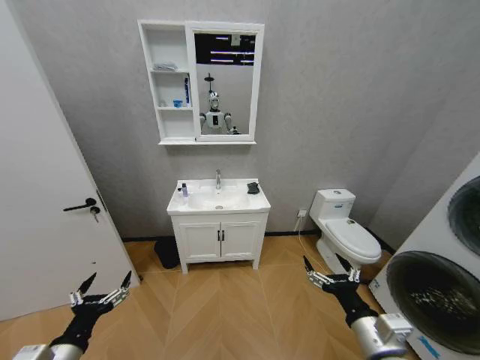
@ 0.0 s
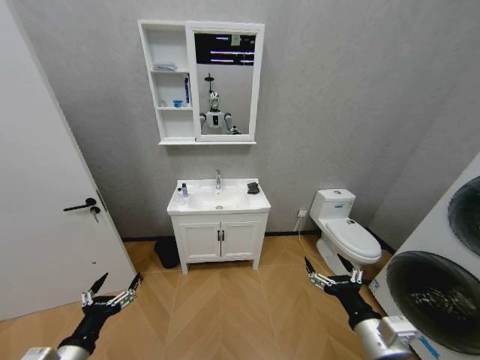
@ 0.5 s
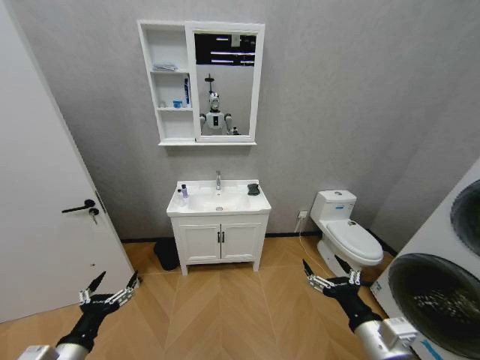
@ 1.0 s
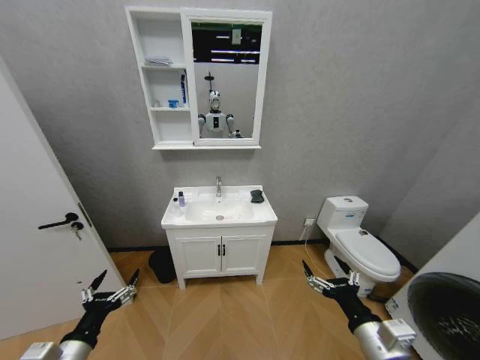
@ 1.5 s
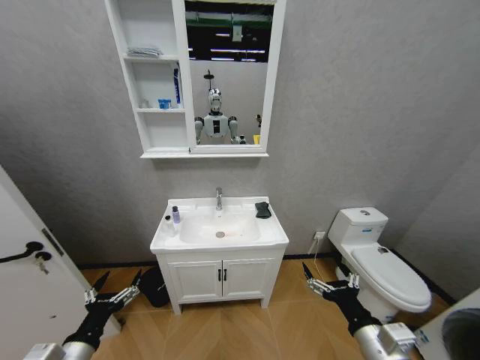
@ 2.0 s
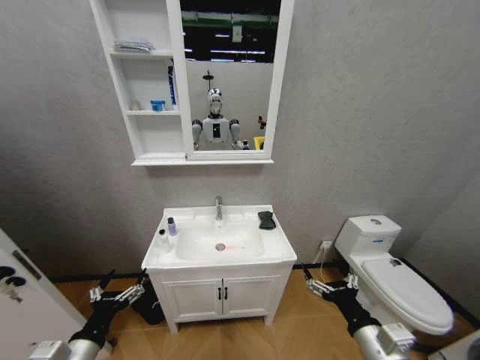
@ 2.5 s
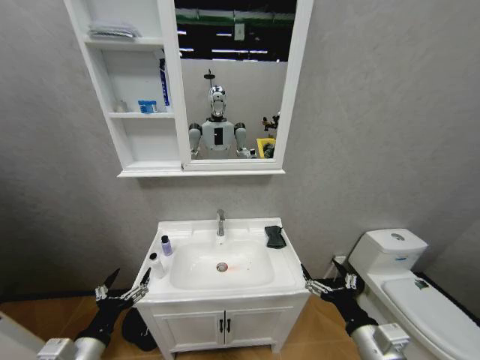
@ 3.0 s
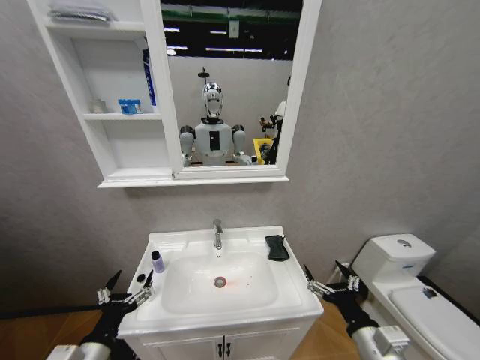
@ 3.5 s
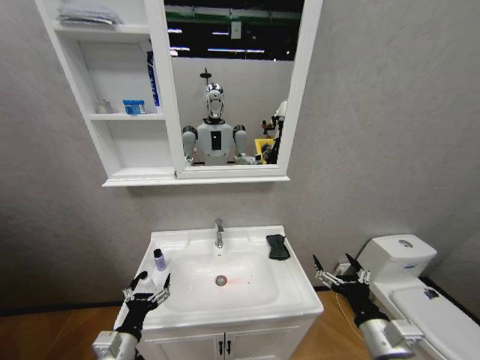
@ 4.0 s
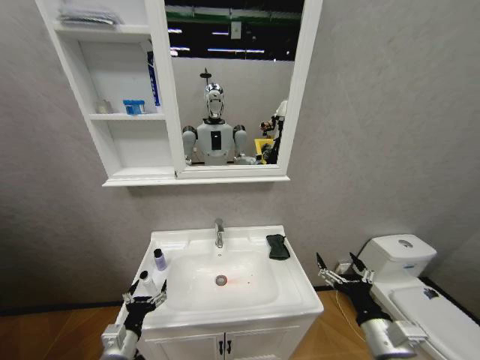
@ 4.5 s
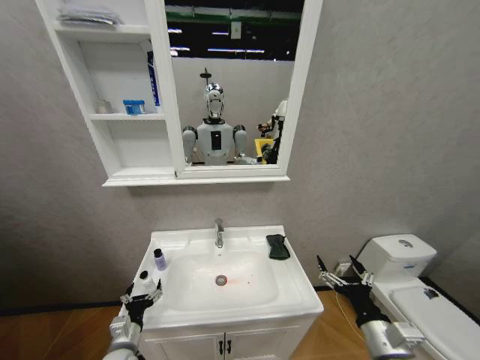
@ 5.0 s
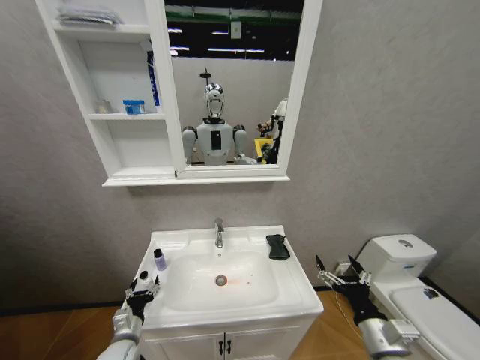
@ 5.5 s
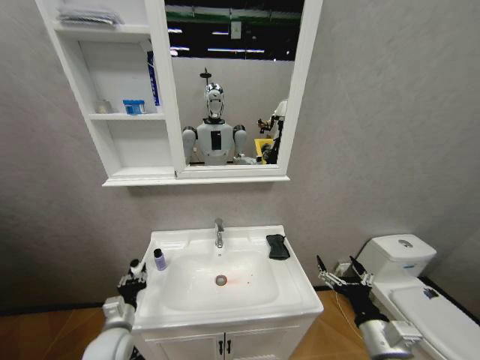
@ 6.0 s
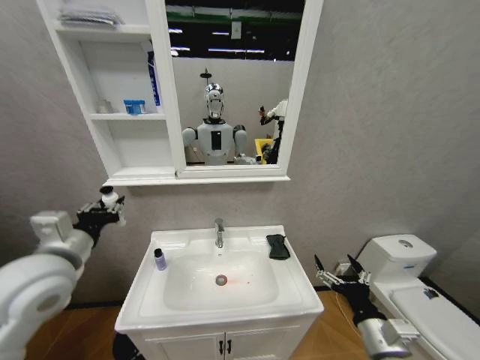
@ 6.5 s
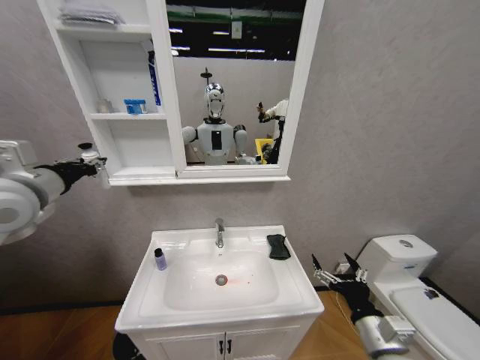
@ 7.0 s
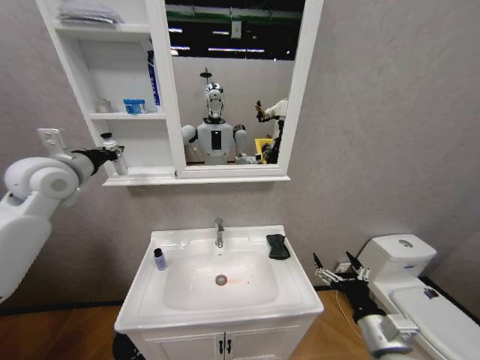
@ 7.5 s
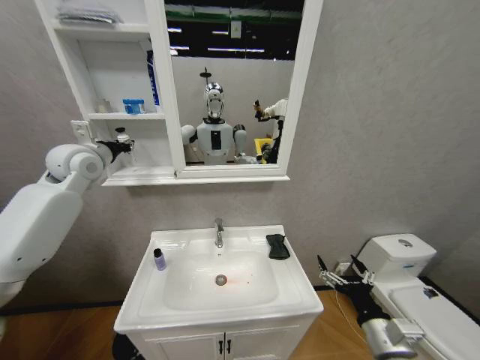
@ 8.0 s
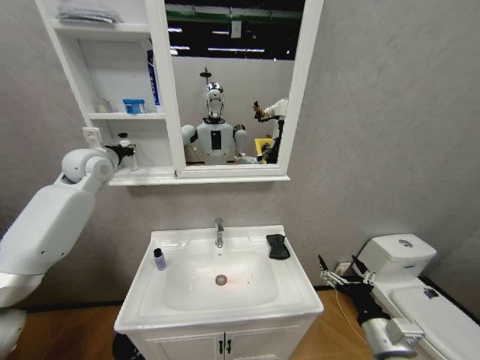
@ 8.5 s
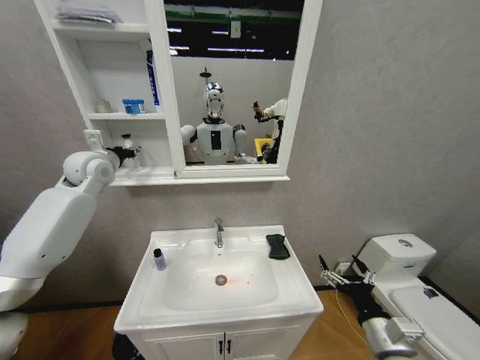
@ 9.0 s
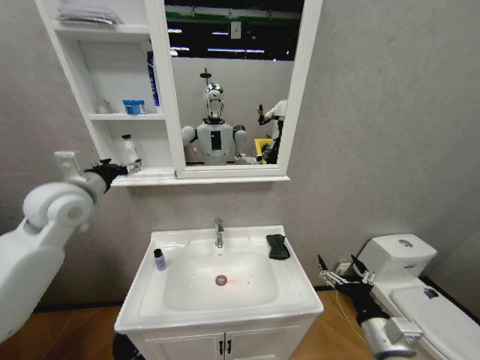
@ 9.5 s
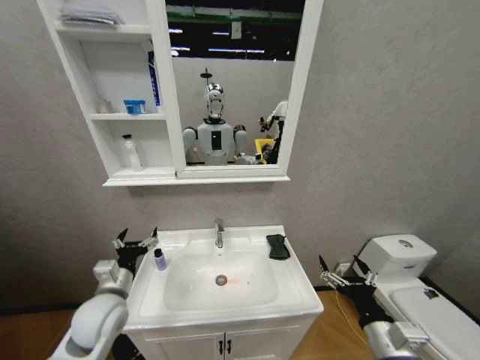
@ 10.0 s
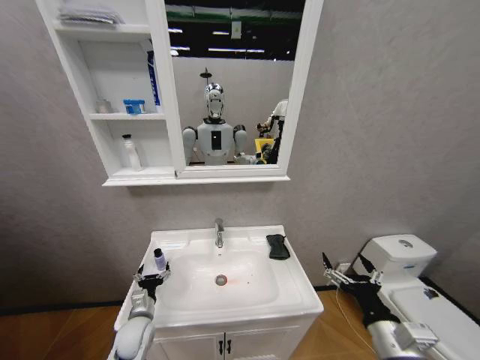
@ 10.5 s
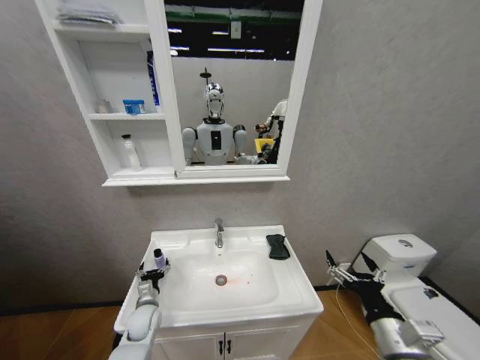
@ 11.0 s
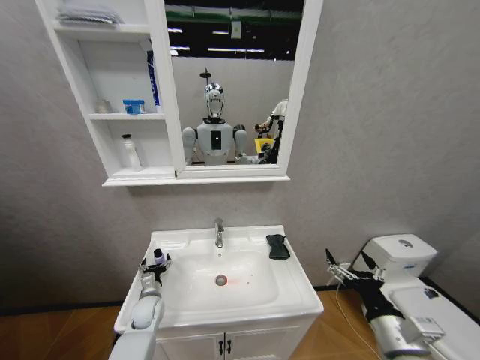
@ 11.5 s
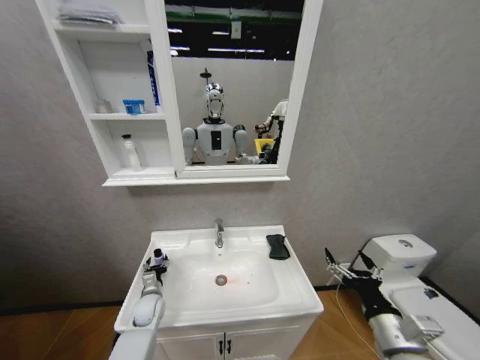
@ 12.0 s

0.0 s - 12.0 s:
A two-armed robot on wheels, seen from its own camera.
Task of the whole recording: Move facial cleanser and shampoo from washbasin to cabinet, then wipe washbasin with towel.
2.0 s - 4.0 s: The left gripper heads to the right, covering about 5 cm.
4.0 s - 6.0 s: The left gripper heads forward, covering about 10 cm, and closes.
6.0 s - 8.0 s: The left gripper is displaced upward and forward by approximately 50 cm.
8.0 s - 10.0 s: The left gripper heads downward and backward, covering approximately 35 cm, and opens up.
10.0 s - 12.0 s: The left gripper moves downward and forward, approximately 20 cm.

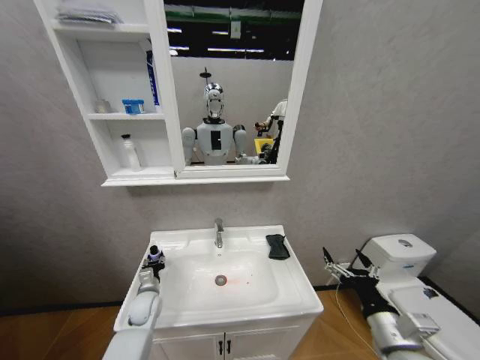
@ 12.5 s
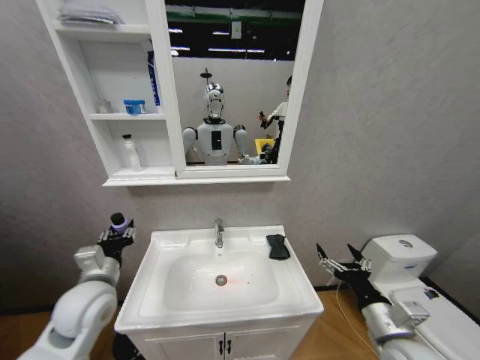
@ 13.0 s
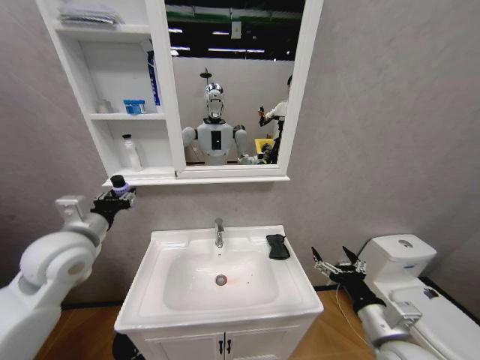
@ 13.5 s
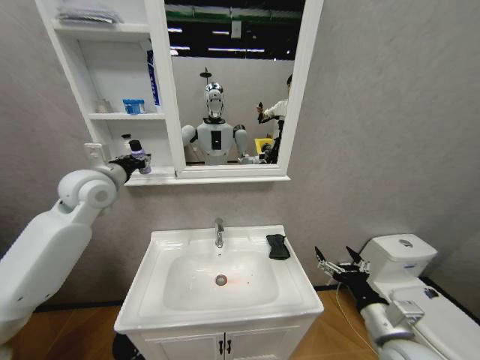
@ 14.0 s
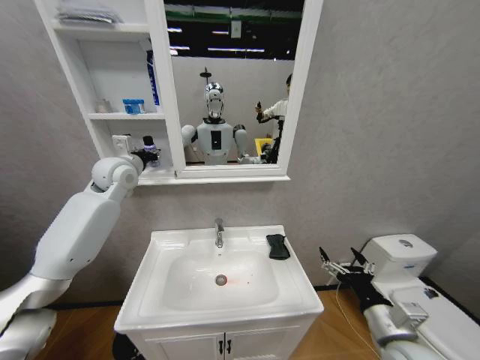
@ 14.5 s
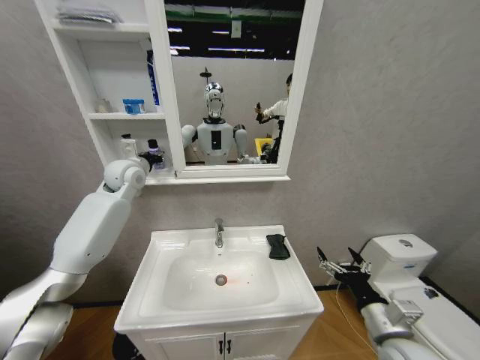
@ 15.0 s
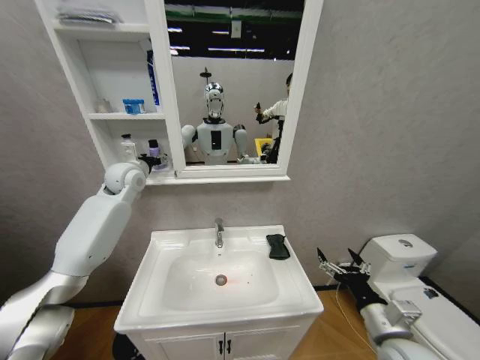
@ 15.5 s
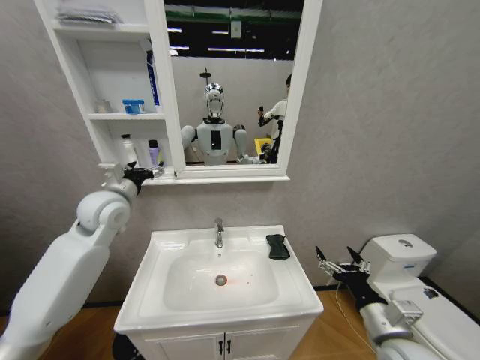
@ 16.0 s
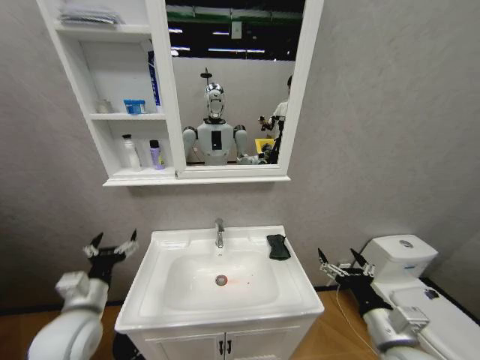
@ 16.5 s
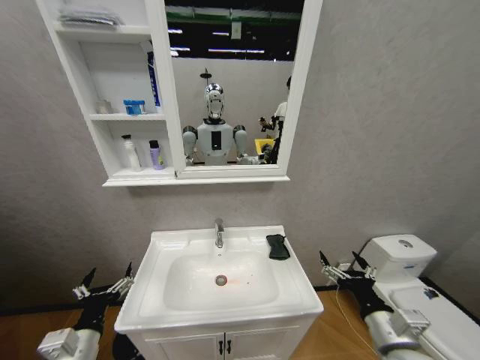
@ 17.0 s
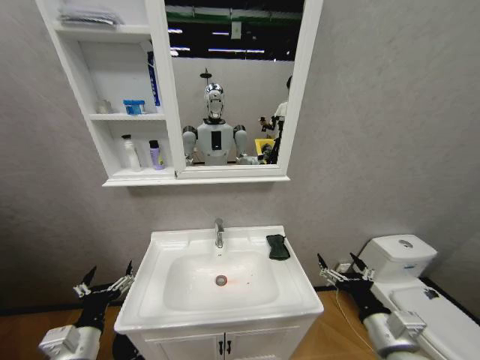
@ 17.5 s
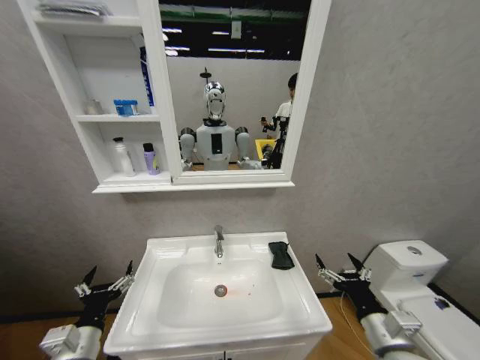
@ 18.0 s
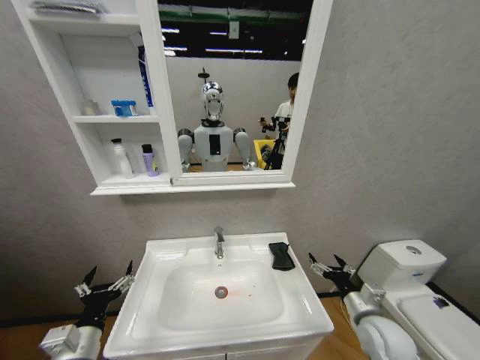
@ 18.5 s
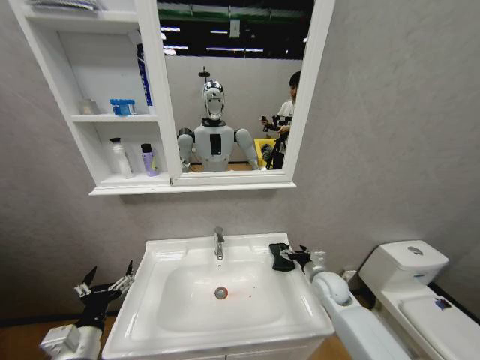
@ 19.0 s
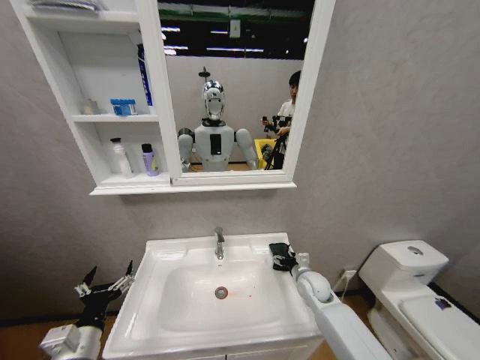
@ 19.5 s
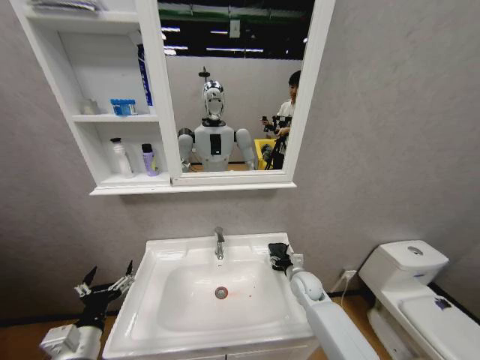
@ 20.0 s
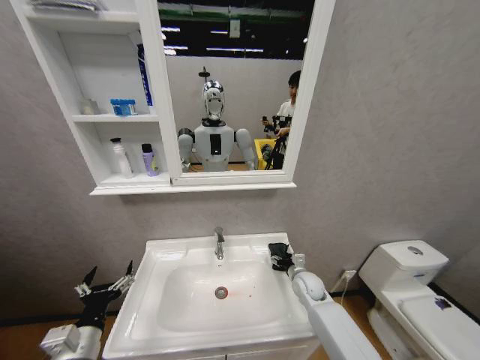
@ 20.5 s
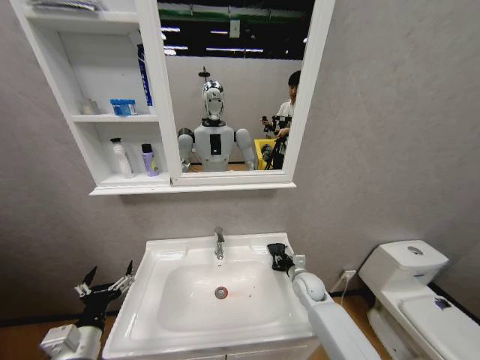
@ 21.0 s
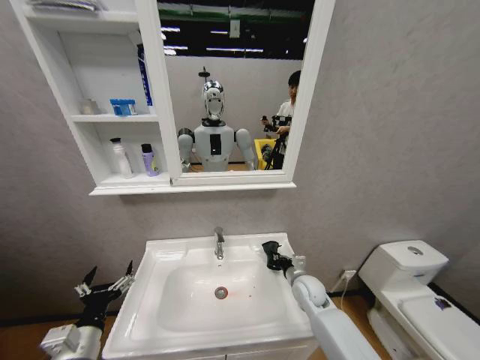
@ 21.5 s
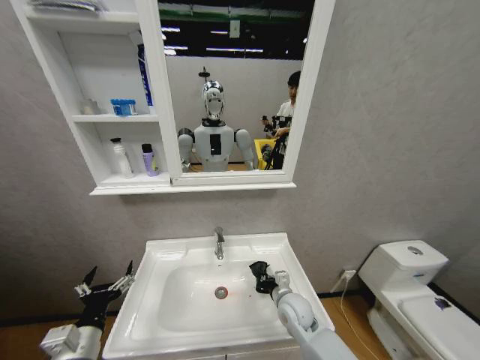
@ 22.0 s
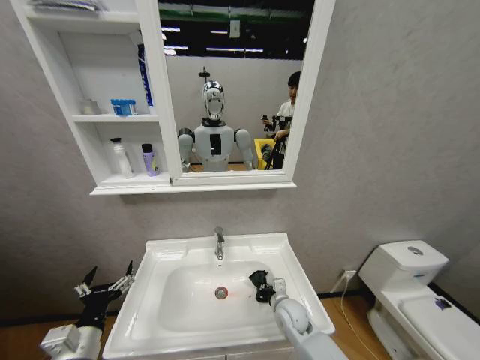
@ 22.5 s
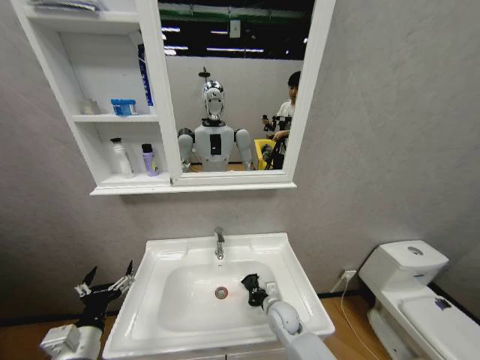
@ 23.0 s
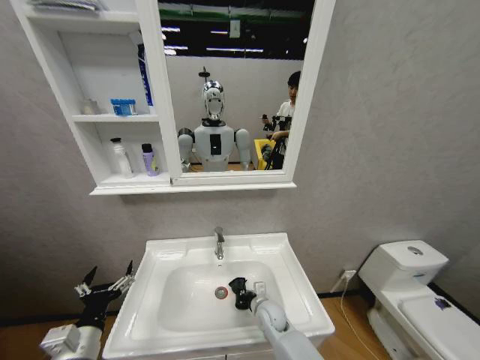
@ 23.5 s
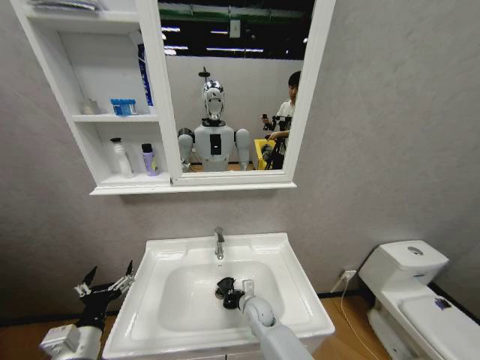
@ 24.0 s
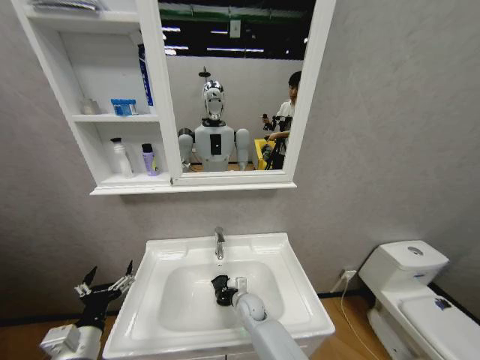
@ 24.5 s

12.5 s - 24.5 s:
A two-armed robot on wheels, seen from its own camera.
Task of the whole recording: Move facial cleanser and shampoo from washbasin to cabinet, then wipe washbasin with towel.
12.5 s - 14.5 s: The left gripper goes roughly 40 cm upward.
14.5 s - 16.5 s: The left gripper shifts some 35 cm backward and downward, and opens its fingers.
16.5 s - 18.5 s: The left gripper goes approximately 10 cm backward and downward. Meanwhile the right gripper shifts approximately 10 cm forward and downward.
18.5 s - 20.5 s: The right gripper heads forward and to the left, covering about 20 cm.
20.5 s - 22.5 s: The right gripper heads to the left and backward, covering about 10 cm, and closes its fingers.
22.5 s - 24.5 s: The right gripper is displaced to the left by about 10 cm.

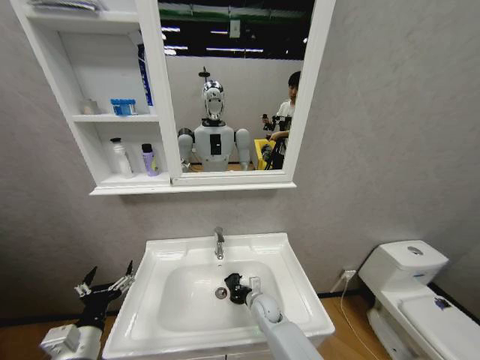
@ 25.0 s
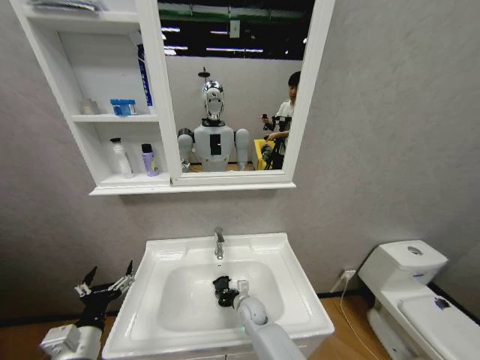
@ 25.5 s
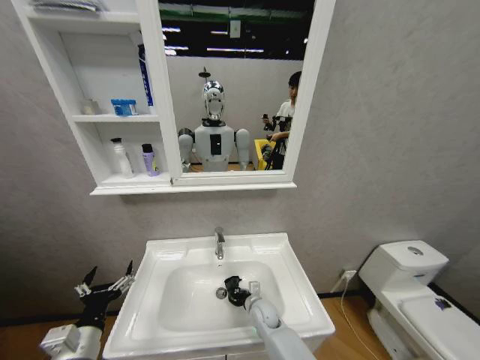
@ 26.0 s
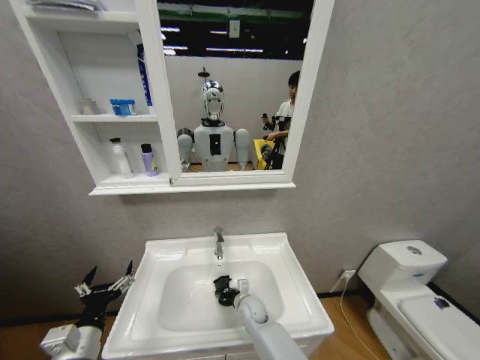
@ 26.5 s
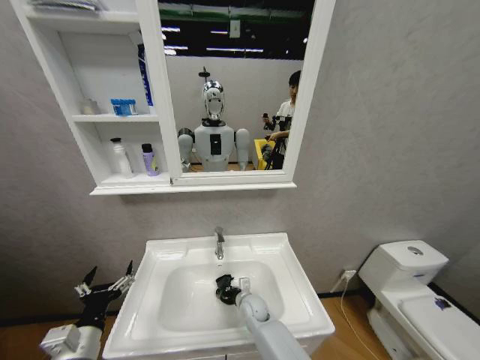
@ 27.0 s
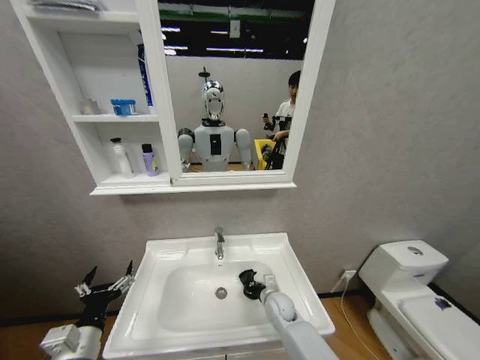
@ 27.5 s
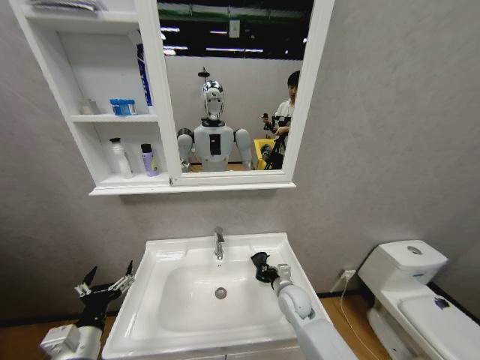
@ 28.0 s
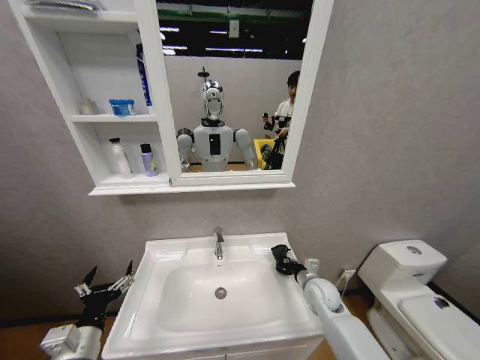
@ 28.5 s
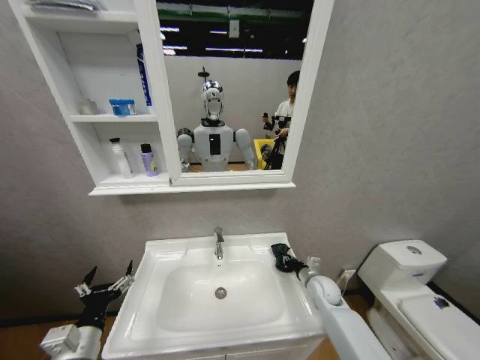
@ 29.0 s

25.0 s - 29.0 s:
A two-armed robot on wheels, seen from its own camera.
Task of the whole recording: Move facial cleanser and shampoo from washbasin to cabinet, then wipe washbasin with towel.
25.0 s - 27.0 s: The right gripper goes left and right, roughly 5 cm each way, reversing 2 times.
27.0 s - 29.0 s: The right gripper travels to the right by some 25 cm.
